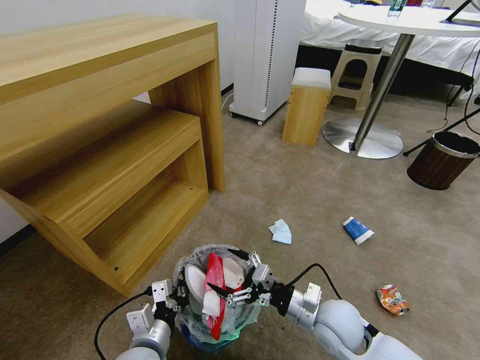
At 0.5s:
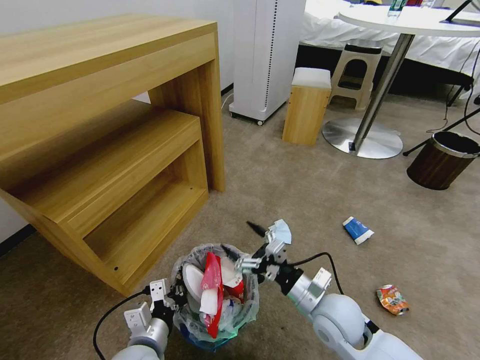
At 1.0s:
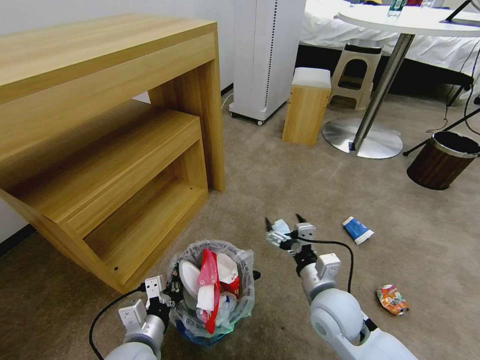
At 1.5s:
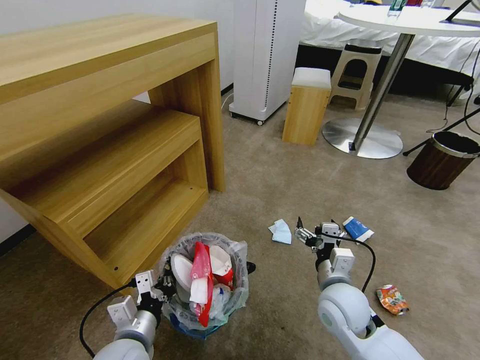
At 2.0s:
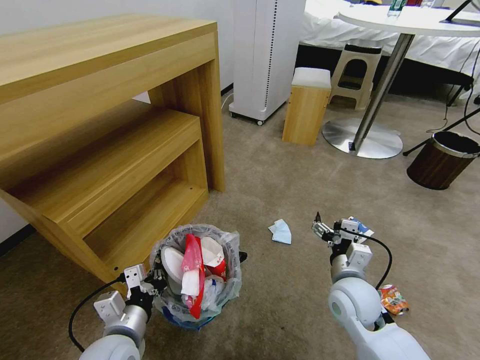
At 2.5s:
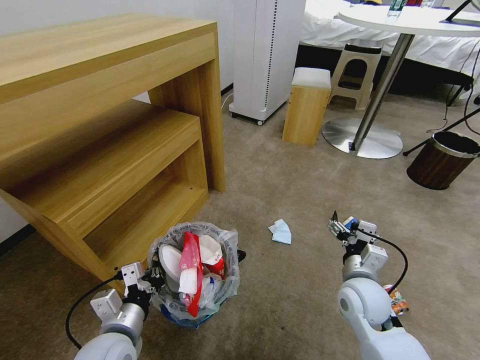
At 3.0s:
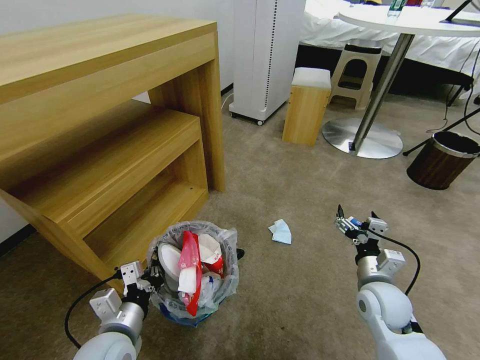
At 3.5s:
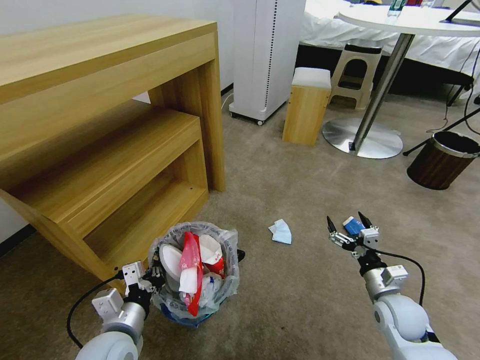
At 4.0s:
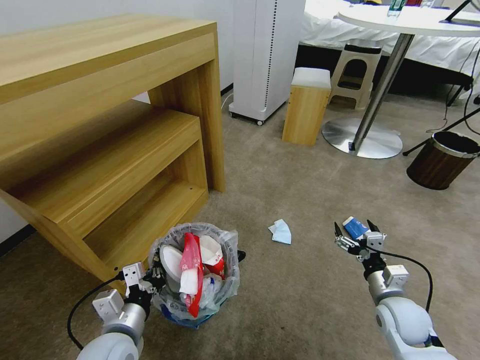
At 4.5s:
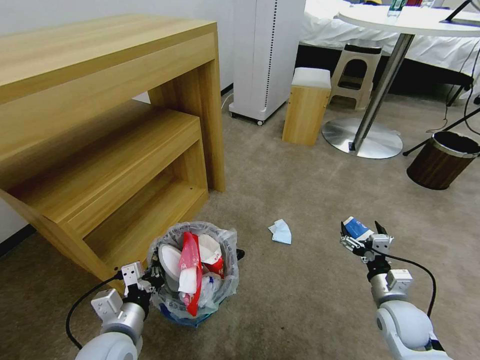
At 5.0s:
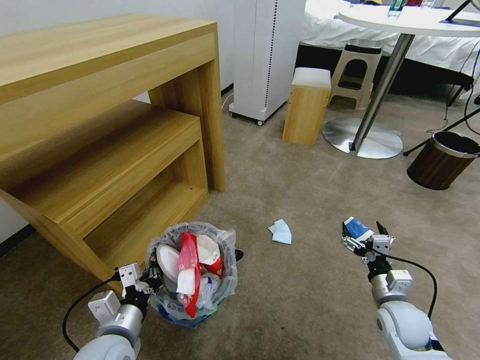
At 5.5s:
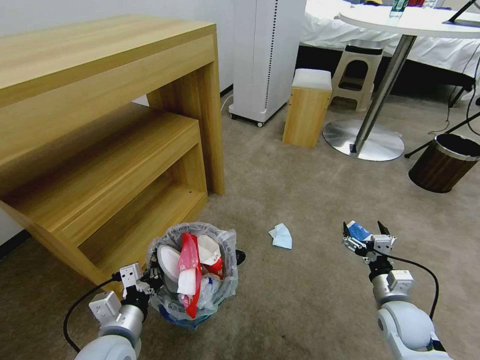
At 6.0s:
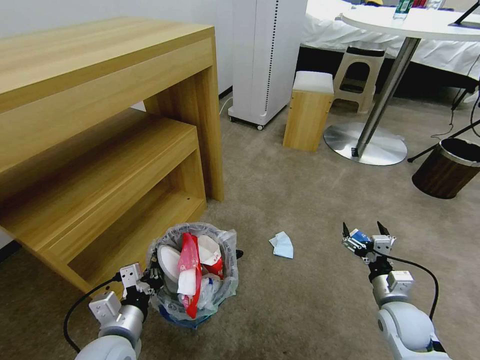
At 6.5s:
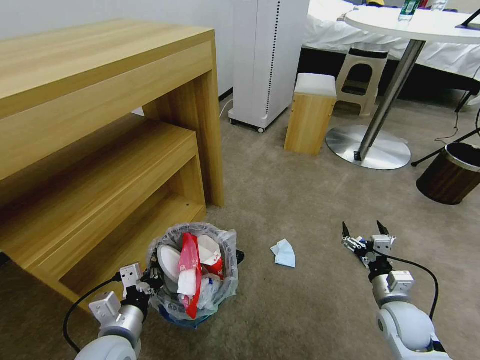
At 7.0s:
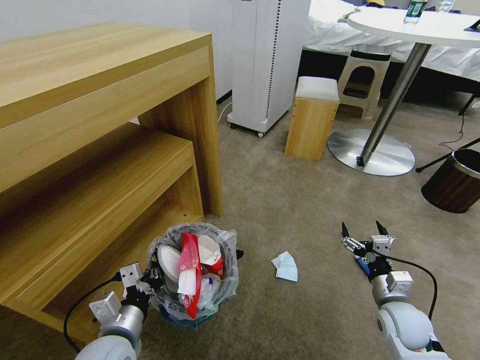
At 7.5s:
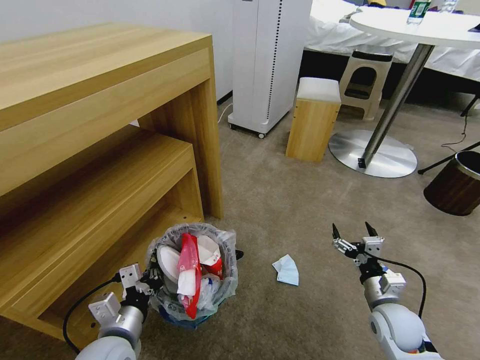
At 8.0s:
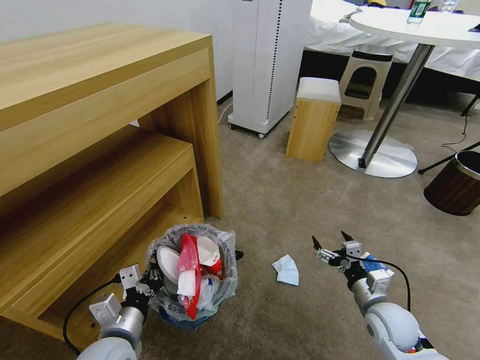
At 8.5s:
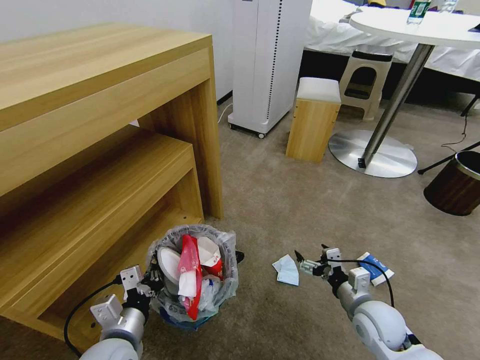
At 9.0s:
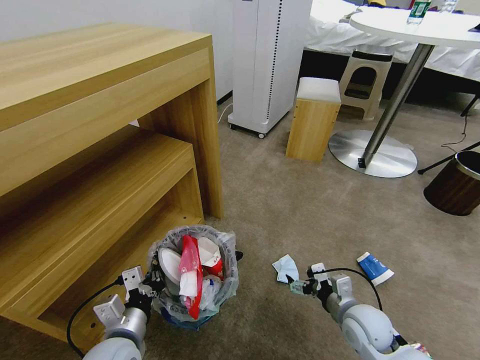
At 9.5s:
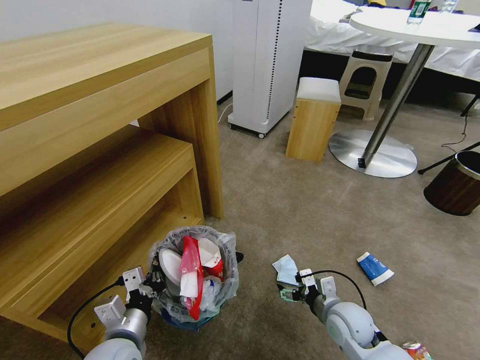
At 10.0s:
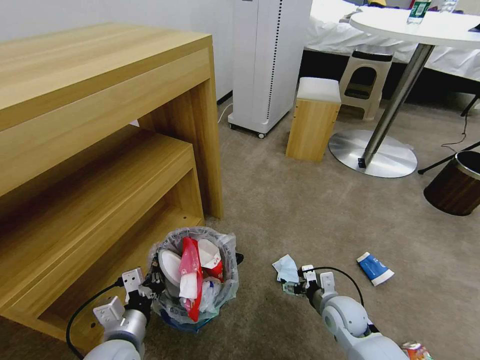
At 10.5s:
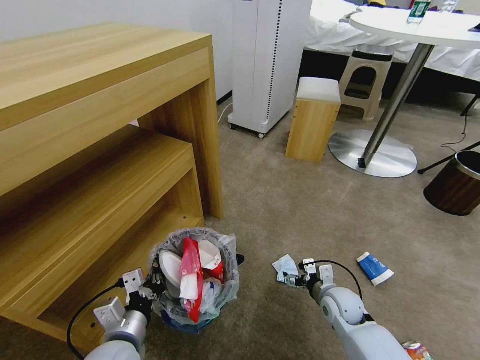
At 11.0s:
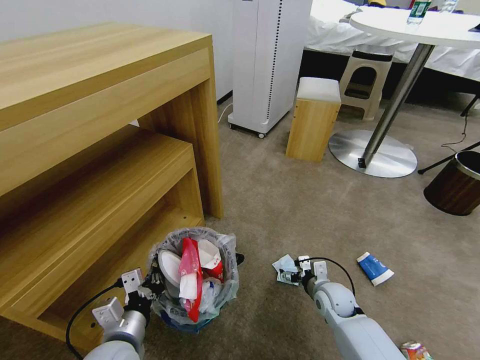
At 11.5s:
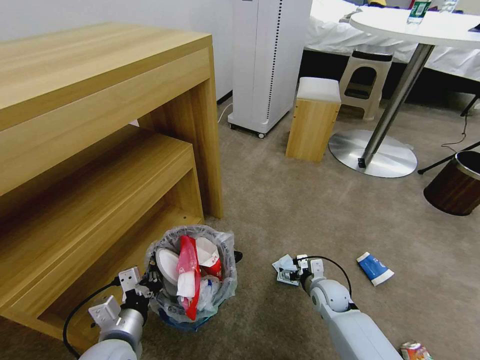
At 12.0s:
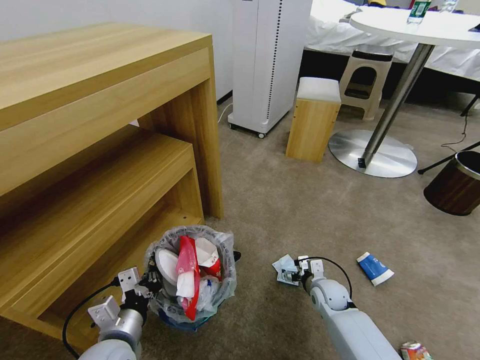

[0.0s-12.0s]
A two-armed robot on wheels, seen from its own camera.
Task of the whole recording: Pick up the trash bin and place the garbage on the floor into it.
0.0s to 2.0s: The right gripper changes place by approximately 5 cm; the left gripper moves roughly 5 cm.
2.0s to 4.0s: The right gripper moves to the right and downward, about 15 cm.
8.0s to 10.0s: The right gripper goes roughly 5 cm to the left.
10.0s to 12.0s: The right gripper travels forward and downward by roughly 10 cm.

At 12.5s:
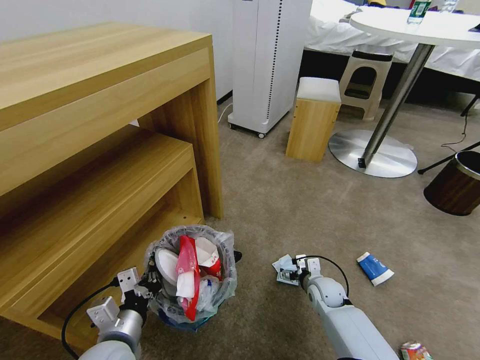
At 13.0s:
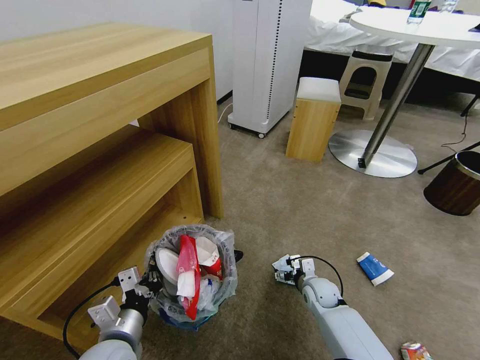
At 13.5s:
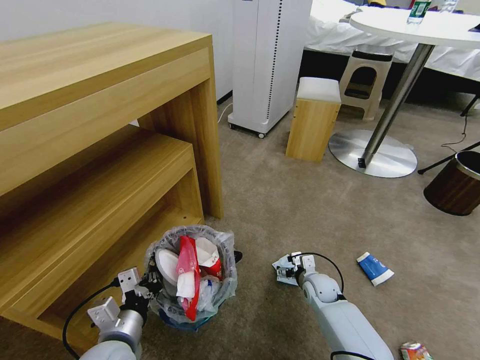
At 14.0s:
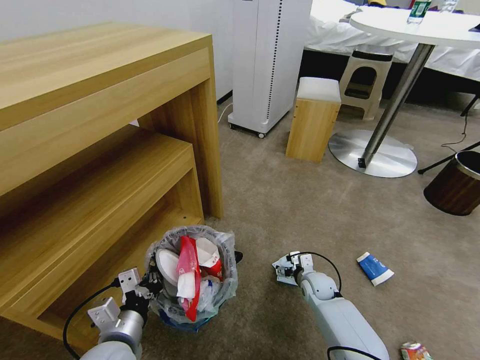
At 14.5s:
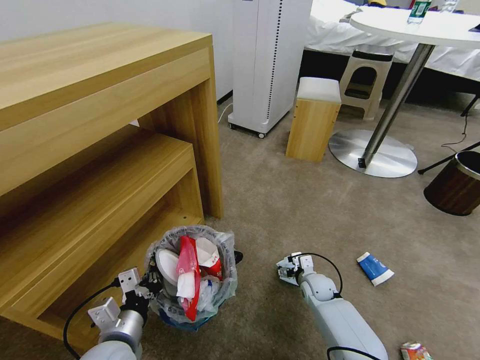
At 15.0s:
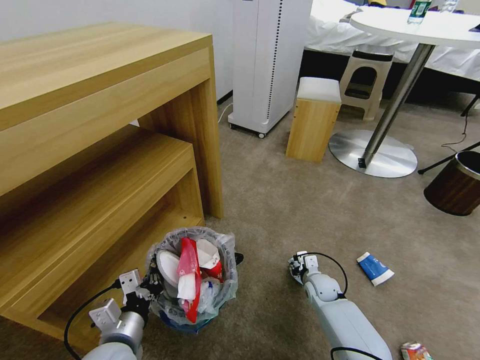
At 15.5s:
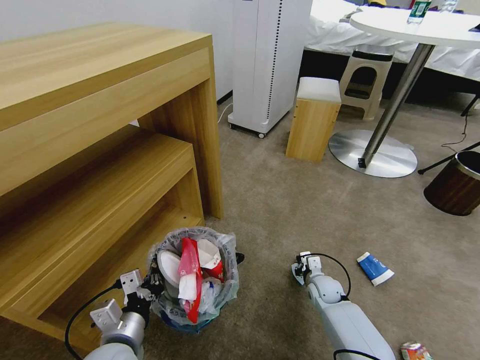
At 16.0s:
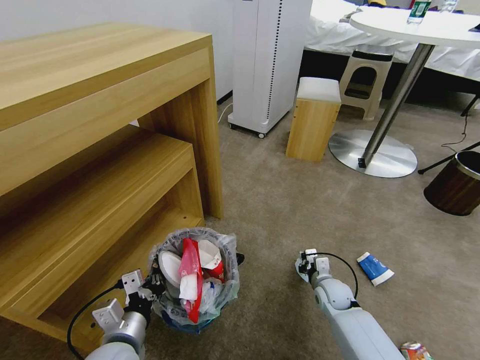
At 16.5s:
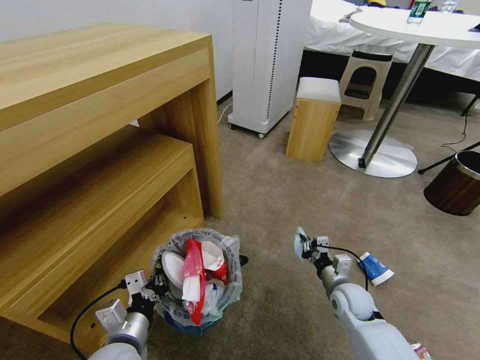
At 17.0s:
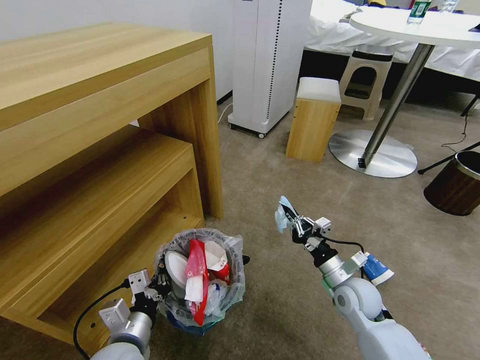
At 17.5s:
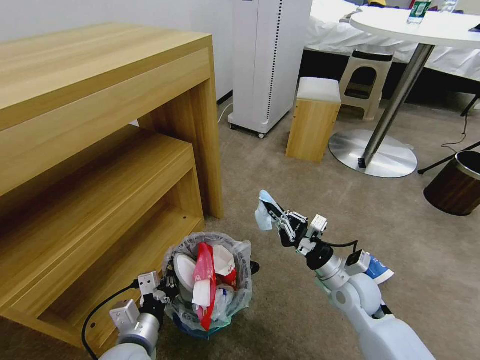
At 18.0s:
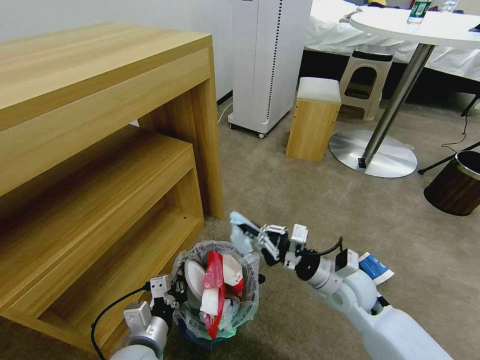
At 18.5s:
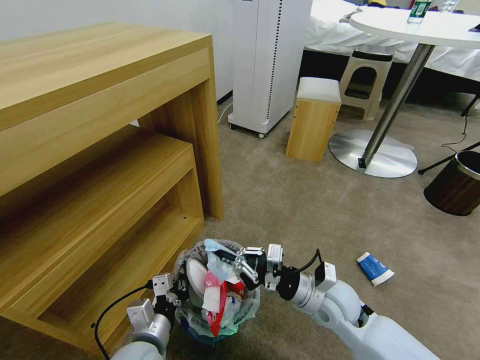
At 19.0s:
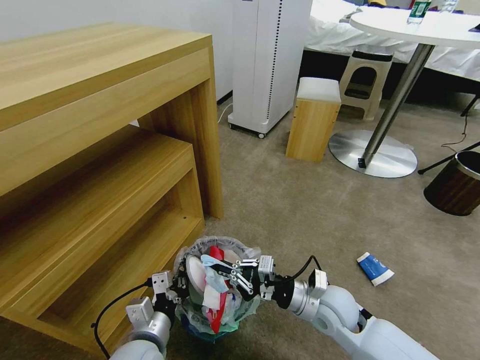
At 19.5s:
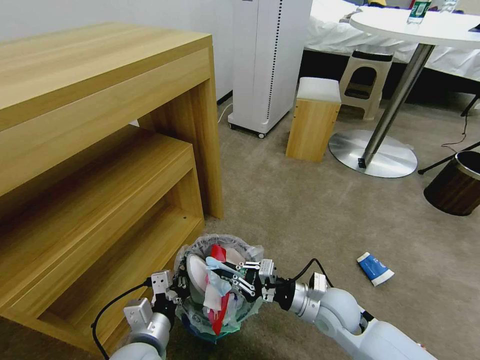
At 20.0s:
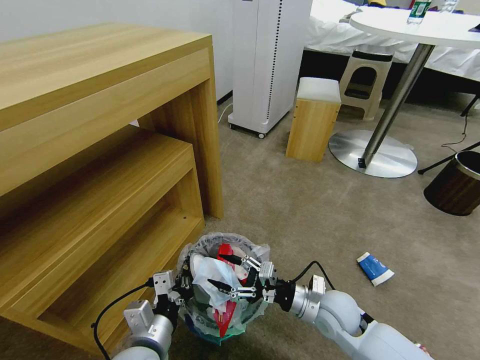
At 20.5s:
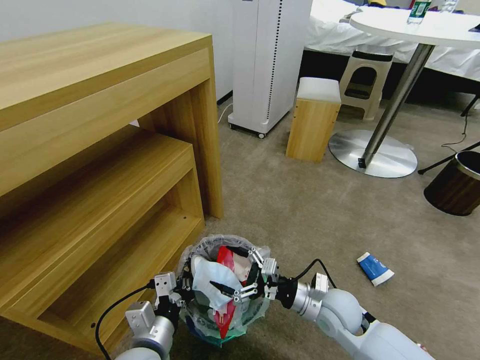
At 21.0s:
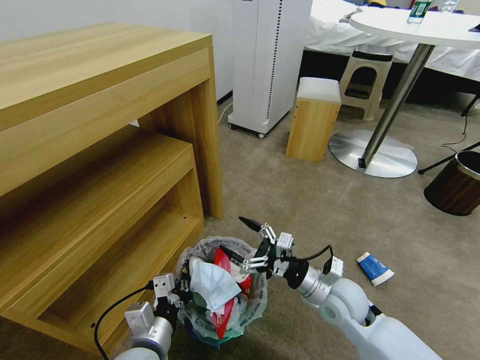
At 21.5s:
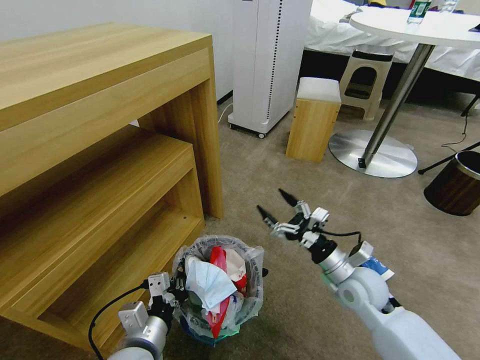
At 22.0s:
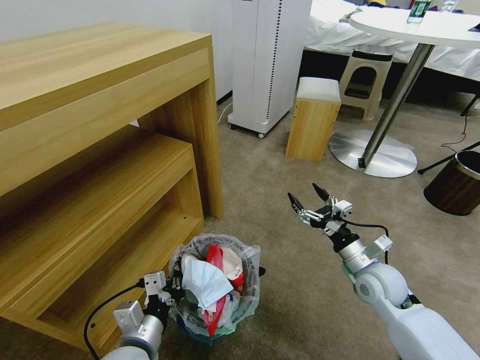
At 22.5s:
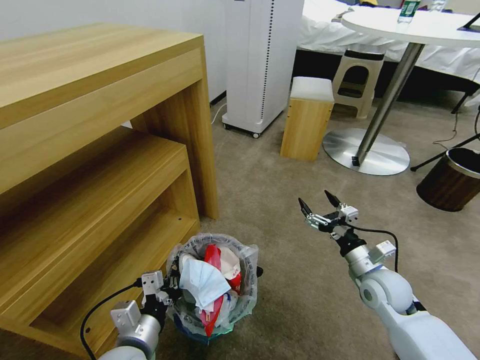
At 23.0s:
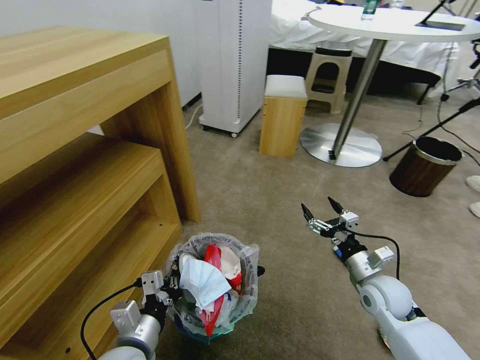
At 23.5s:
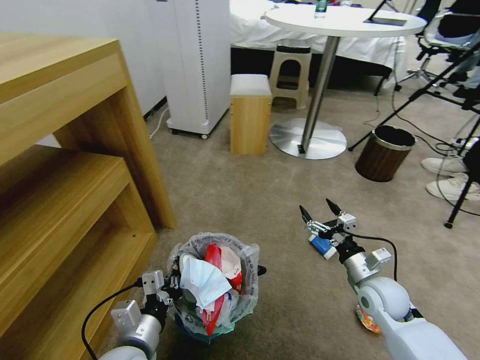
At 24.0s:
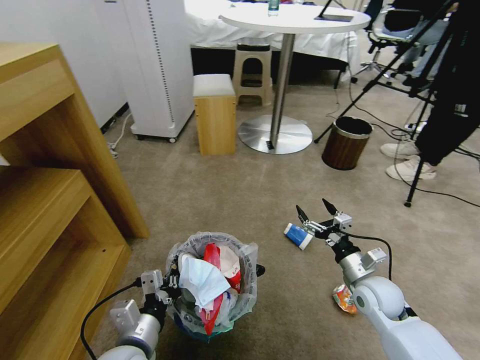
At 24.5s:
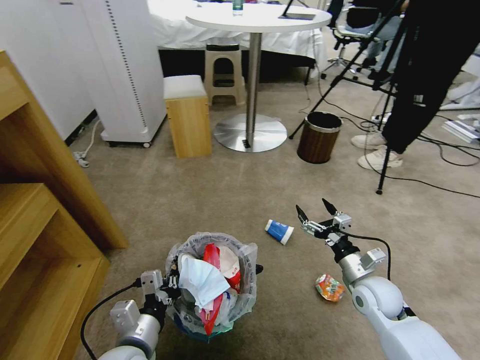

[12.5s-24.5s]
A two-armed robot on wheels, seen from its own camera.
Task of the whole recording: Pick up the trash bin and place the garbage on the floor into it.
12.5s to 14.5s: The grippers move only a little.
14.5s to 16.5s: The right gripper is displaced upward and backward by approximately 10 cm, and closes.
16.5s to 18.5s: The right gripper is displaced upward and to the left by approximately 15 cm.
18.5s to 20.5s: The right gripper opens up.
20.5s to 22.5s: The right gripper travels to the right by about 10 cm.

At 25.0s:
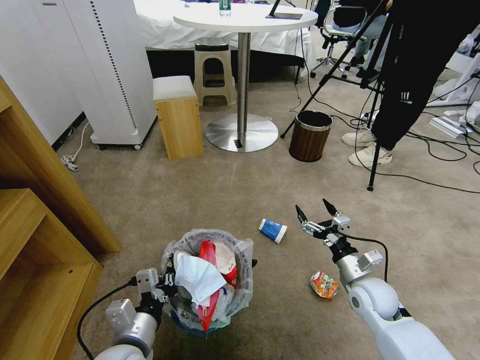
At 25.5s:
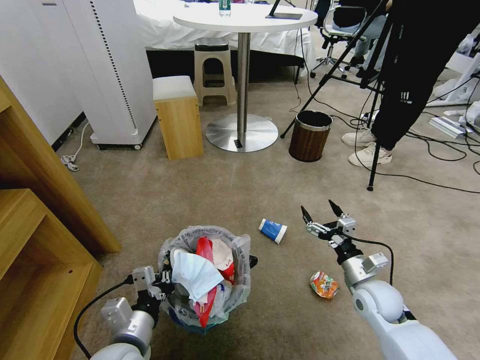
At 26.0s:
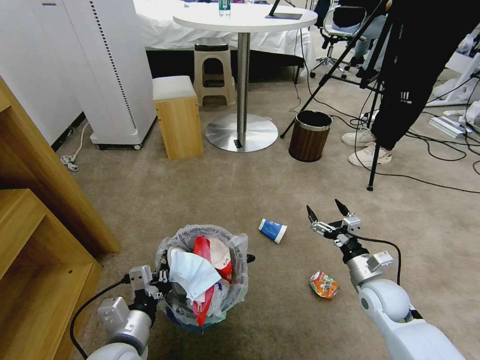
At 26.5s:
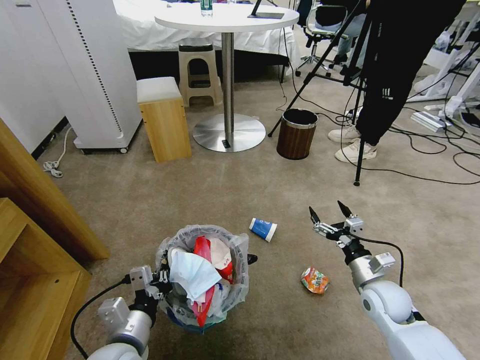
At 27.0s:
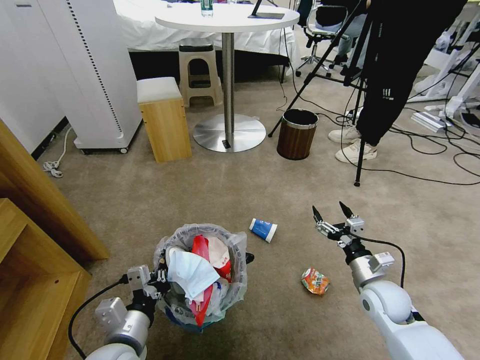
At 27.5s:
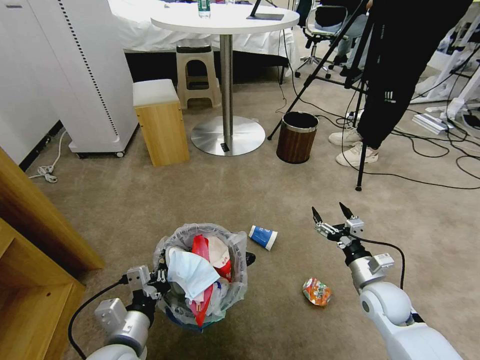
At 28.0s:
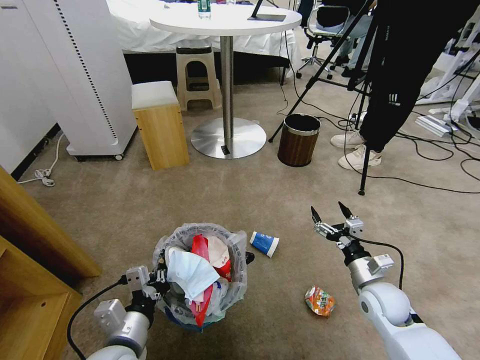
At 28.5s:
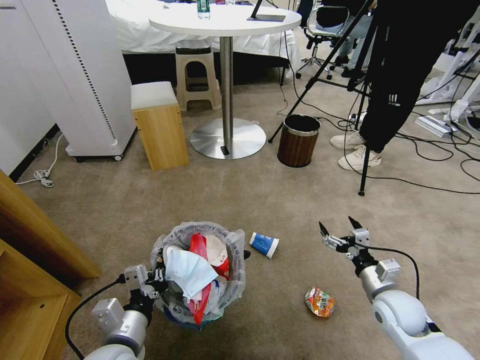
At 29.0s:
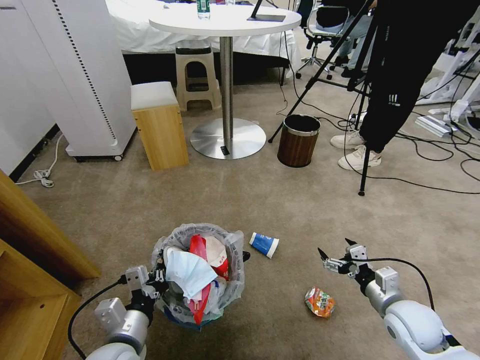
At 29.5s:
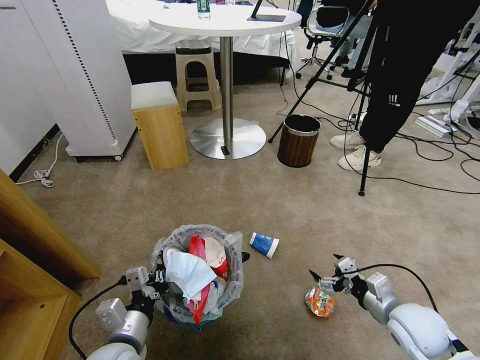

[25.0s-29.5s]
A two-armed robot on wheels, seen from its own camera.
Task of the whole recording: Pick up the trash bin and place the garbage on the floor into it.
27.0s to 29.5s: The right gripper moves backward, about 5 cm.
